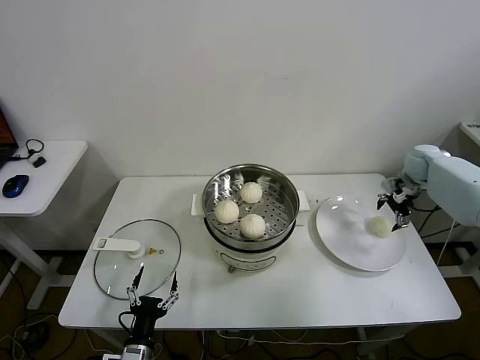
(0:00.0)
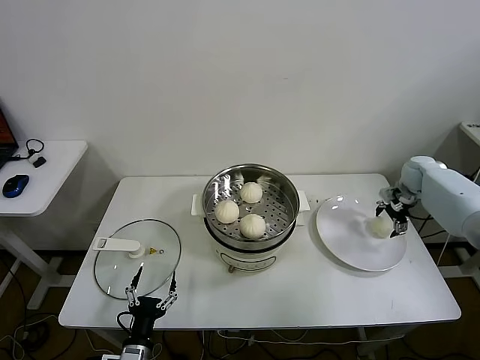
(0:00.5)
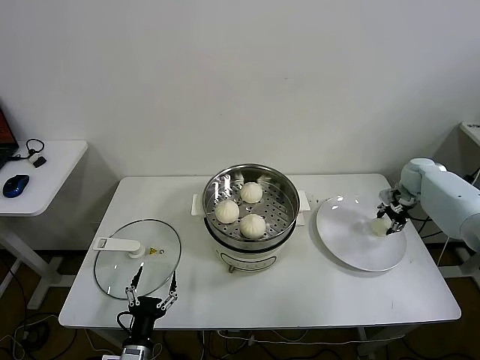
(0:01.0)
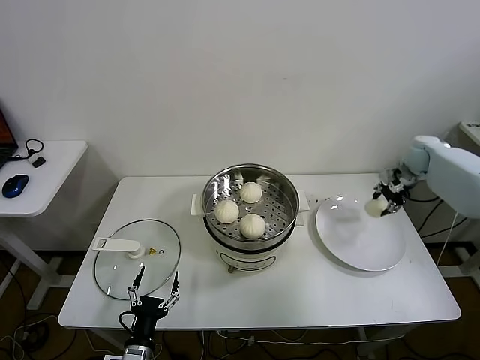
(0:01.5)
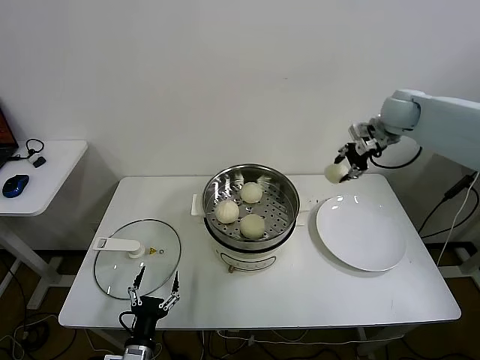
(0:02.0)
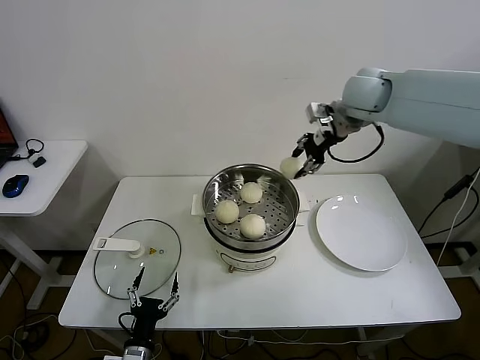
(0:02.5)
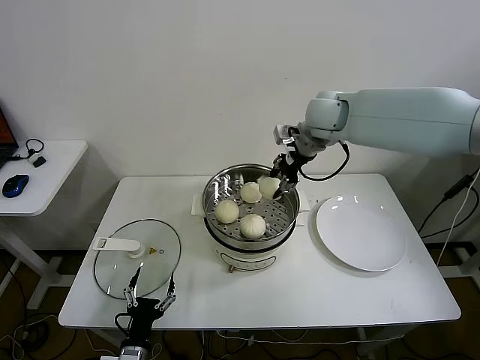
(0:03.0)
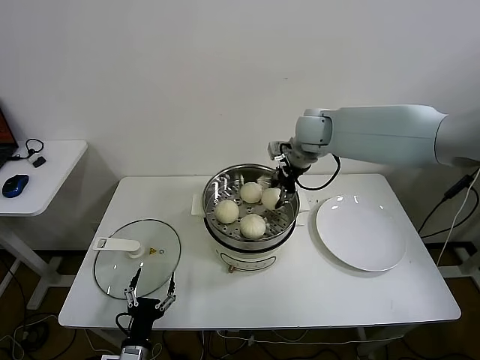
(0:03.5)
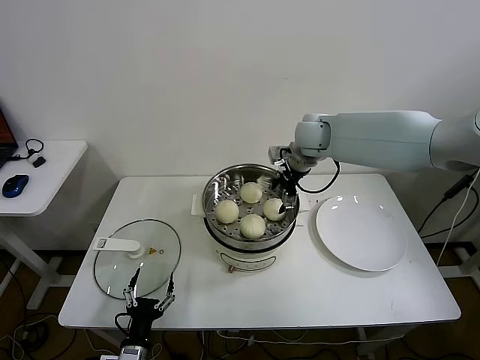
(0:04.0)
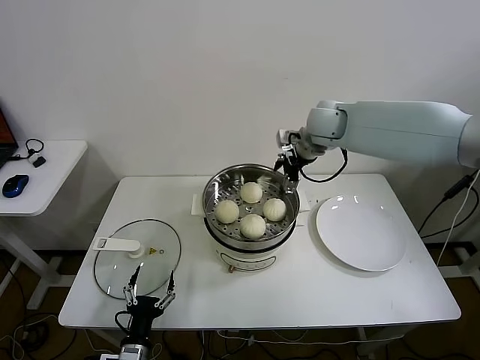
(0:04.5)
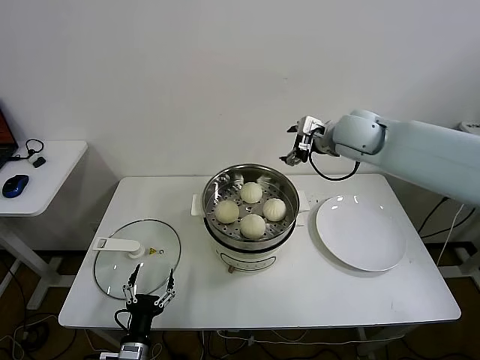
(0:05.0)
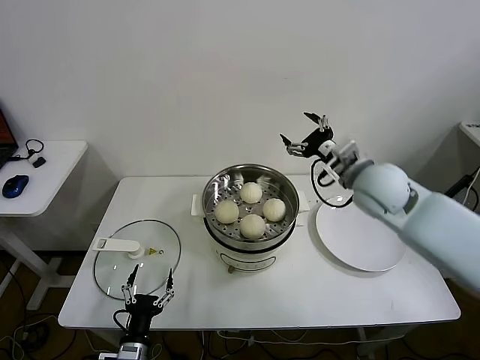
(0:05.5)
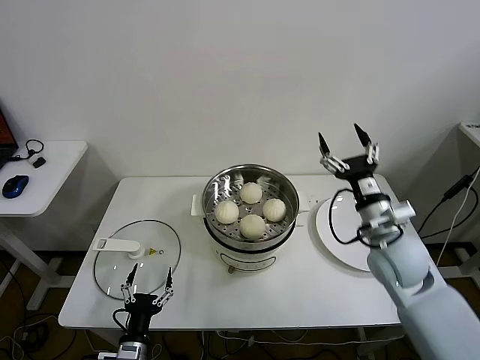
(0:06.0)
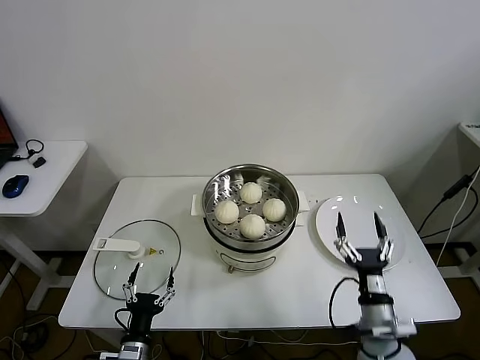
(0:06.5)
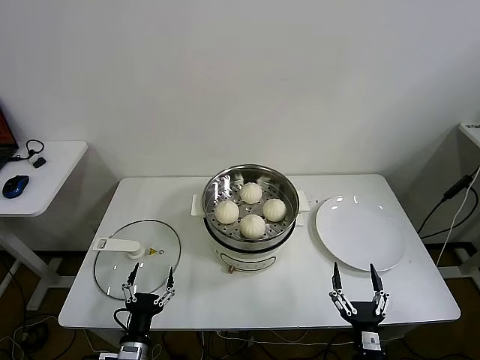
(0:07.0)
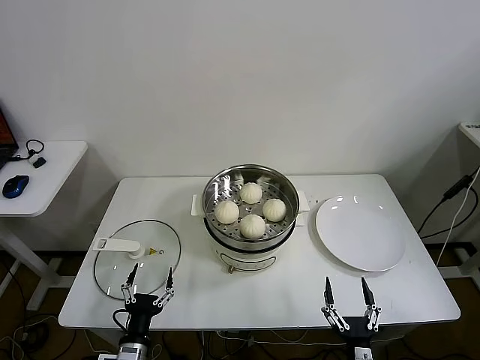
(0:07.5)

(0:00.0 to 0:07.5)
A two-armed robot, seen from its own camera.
Task of the whole recording: take steamed baozi put them in steamer.
Step, 0:01.5 - 0:04.0: Place the baozi on the steamer with right gripper.
0:00.0 - 0:02.0: The right gripper shifts about 20 cm upward and to the left, and closes.
0:02.0 - 0:04.0: The right gripper moves to the left, about 20 cm, and opens its fingers.
0:04.0 - 0:05.5: The right gripper travels backward and to the right by some 15 cm.
0:05.5 - 0:07.5: The right gripper is displaced backward and downward by about 50 cm.

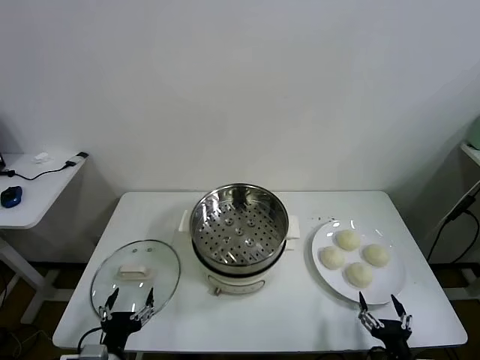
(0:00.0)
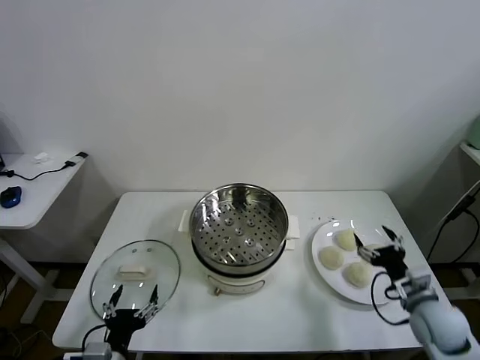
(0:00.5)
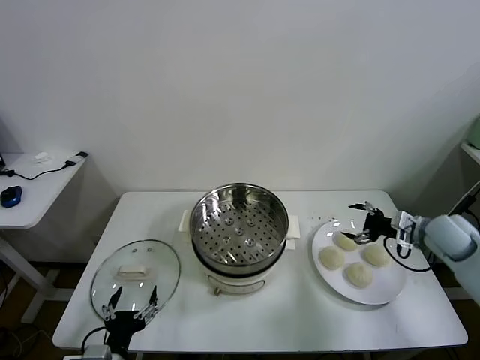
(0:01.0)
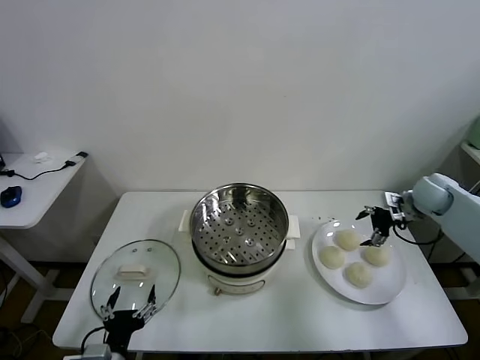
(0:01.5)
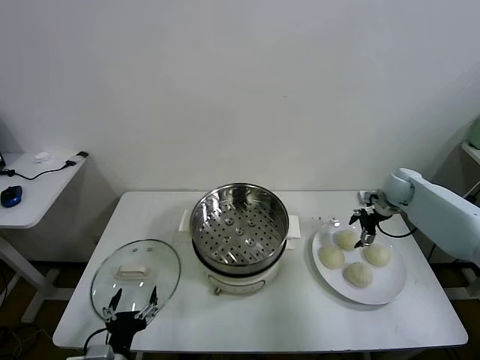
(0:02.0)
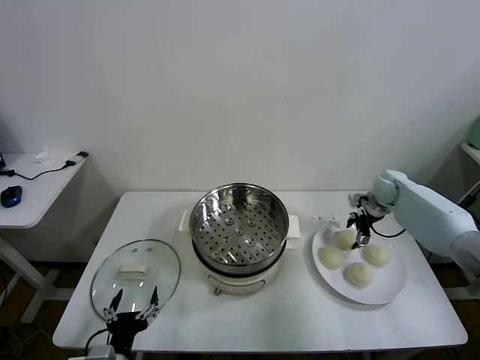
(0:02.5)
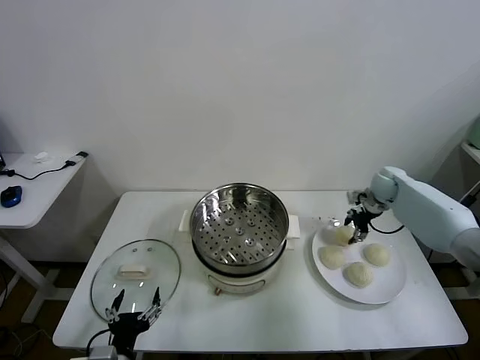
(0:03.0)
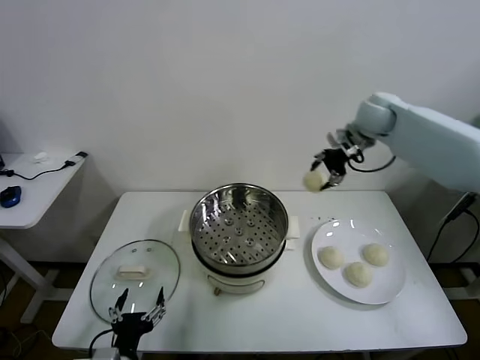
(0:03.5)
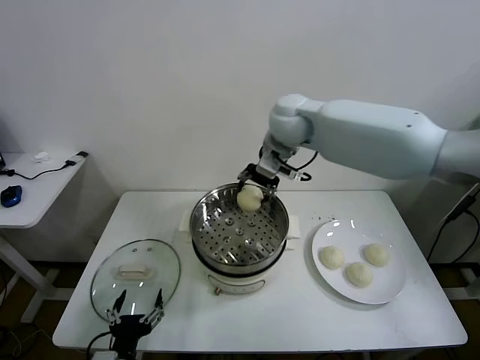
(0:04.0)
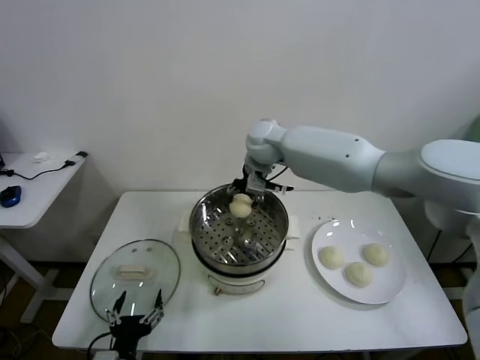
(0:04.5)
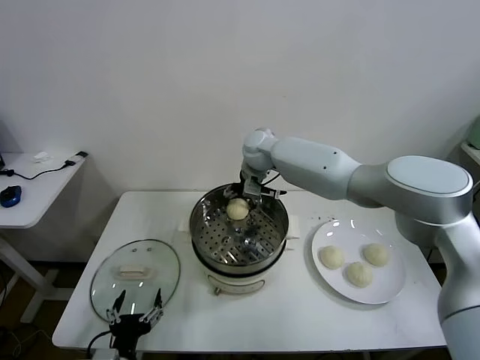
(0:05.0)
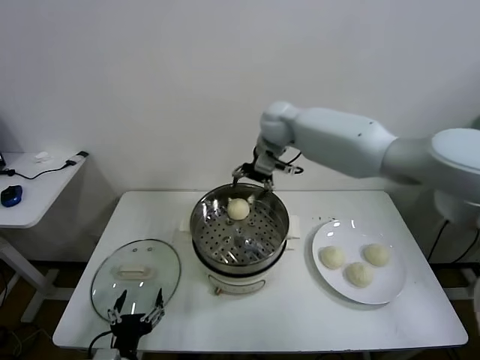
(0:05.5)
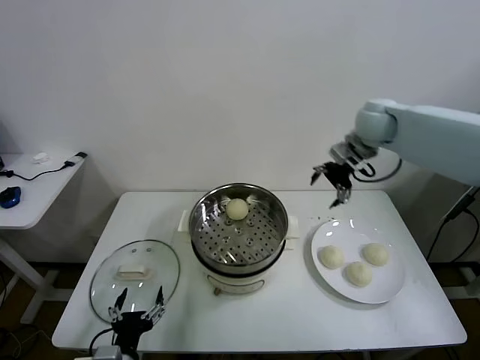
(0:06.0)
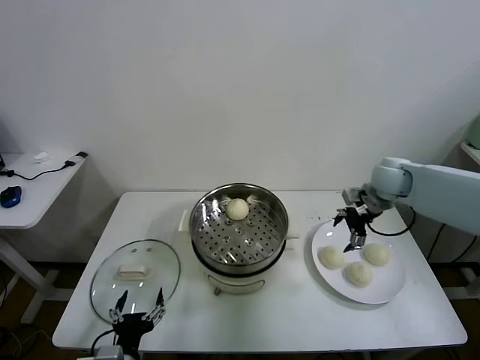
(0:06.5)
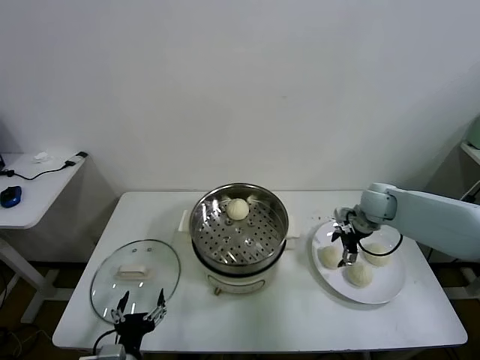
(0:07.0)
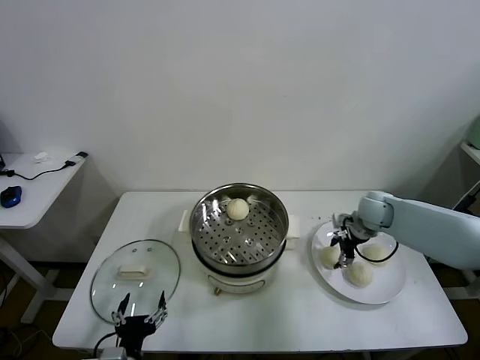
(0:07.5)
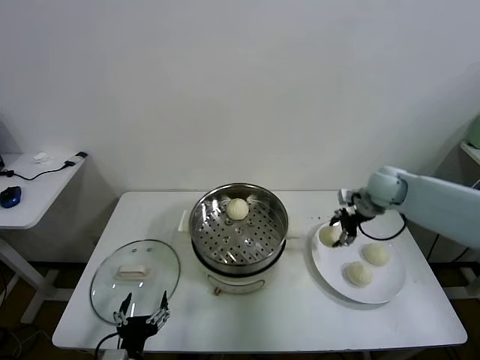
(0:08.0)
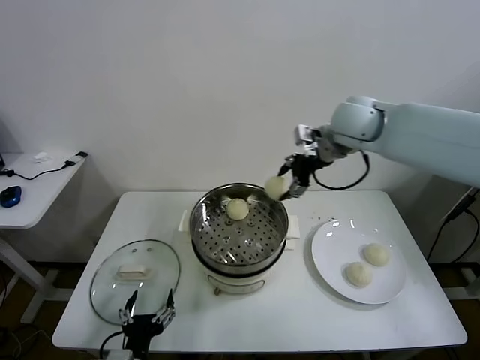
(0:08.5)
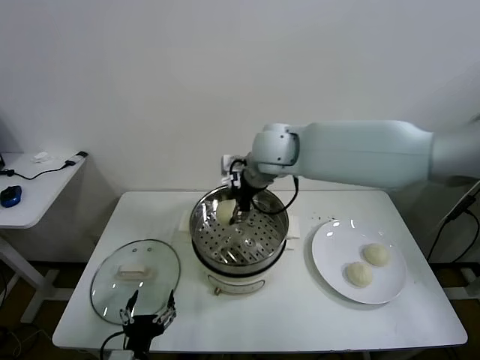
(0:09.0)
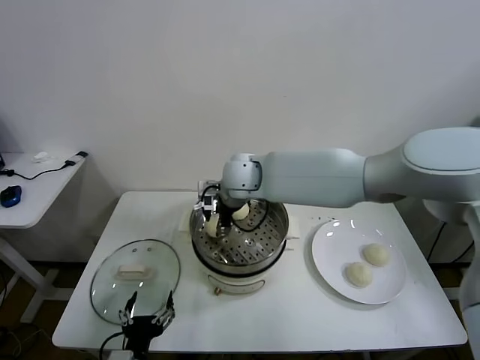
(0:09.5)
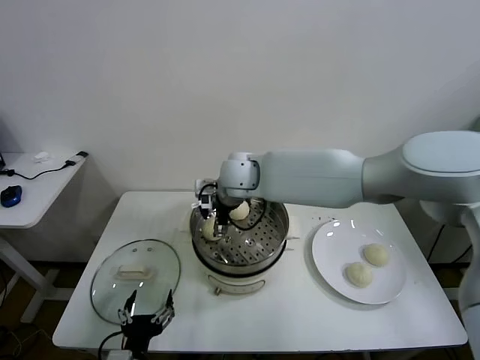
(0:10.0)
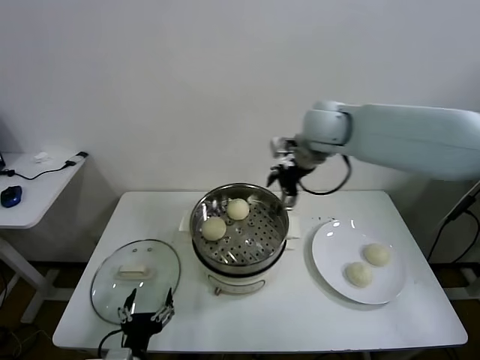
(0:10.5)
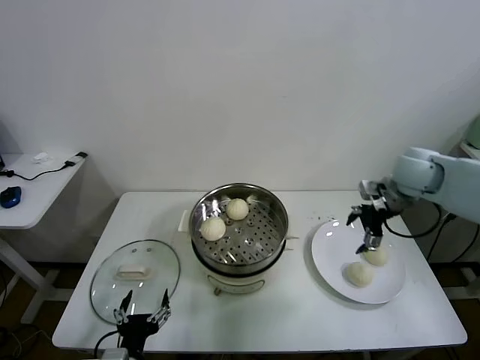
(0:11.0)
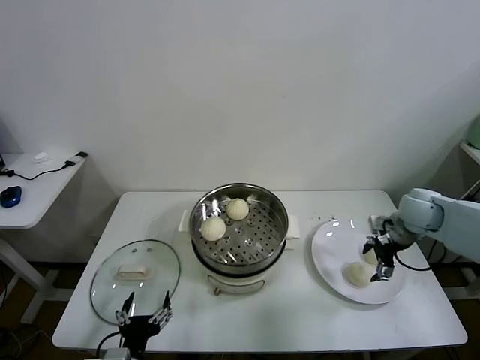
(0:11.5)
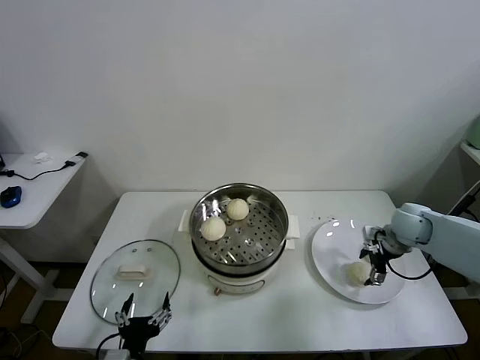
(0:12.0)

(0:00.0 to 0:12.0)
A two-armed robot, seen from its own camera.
Task of the whole recording: take steamed baozi put them in steamer.
Step, 0:00.0 - 0:02.5: Grasp the baozi in the plate with right gripper.
Step, 0:03.0 - 0:05.0: Place the baozi on the steamer with right gripper.
Step, 0:05.5 - 0:07.5: Grasp the baozi in the plate with right gripper.
Step, 0:08.0 - 0:10.0: Place the baozi on the steamer with right gripper.
0:02.0 - 0:04.0: The right gripper travels to the left and upward by some 40 cm, and closes up.
0:04.0 - 0:06.0: The right gripper shifts some 25 cm to the right, and opens up.
0:06.0 - 0:08.0: The right gripper goes some 10 cm downward, and closes its fingers.
0:08.0 - 0:10.0: The right gripper heads to the left, covering about 35 cm, and opens up.
0:10.0 - 0:12.0: The right gripper is displaced to the right by some 40 cm.

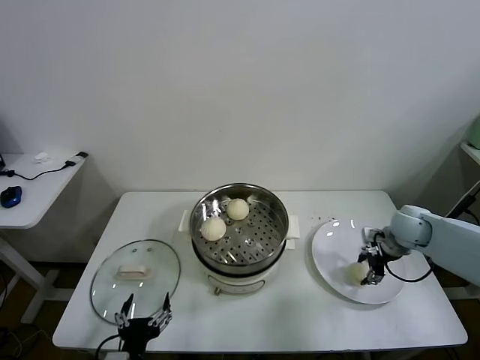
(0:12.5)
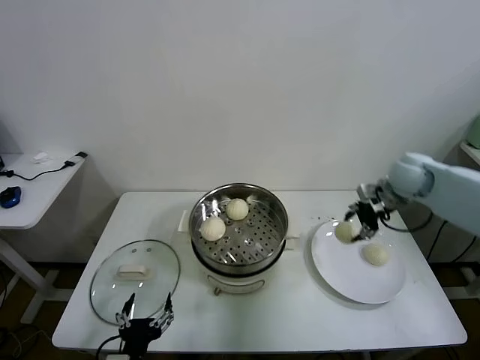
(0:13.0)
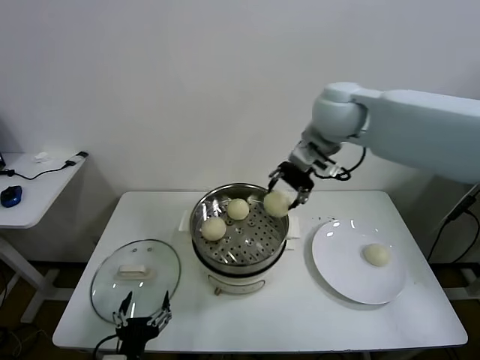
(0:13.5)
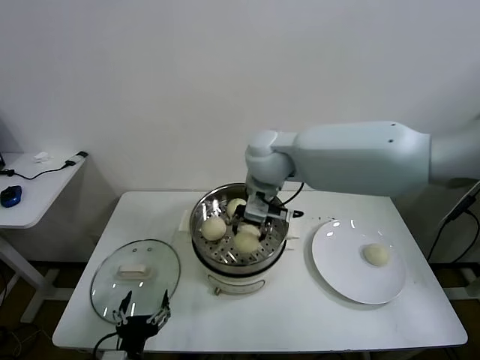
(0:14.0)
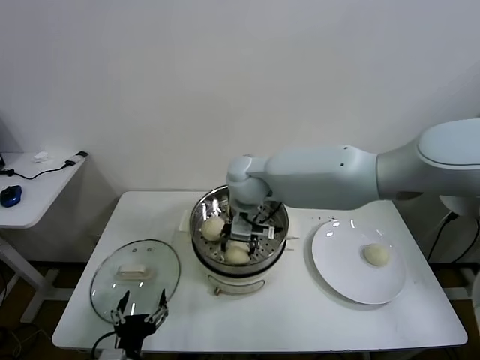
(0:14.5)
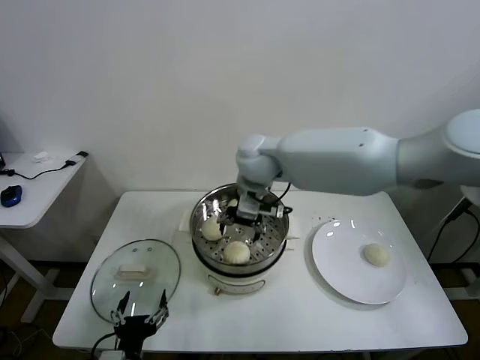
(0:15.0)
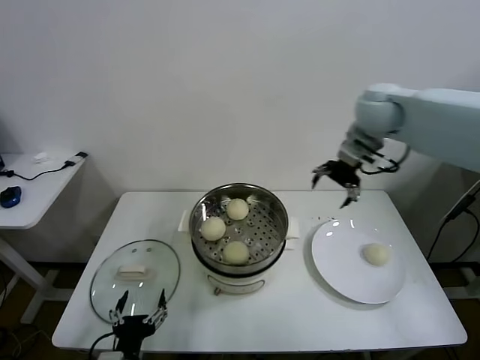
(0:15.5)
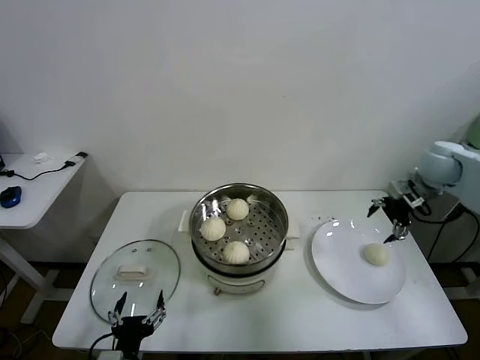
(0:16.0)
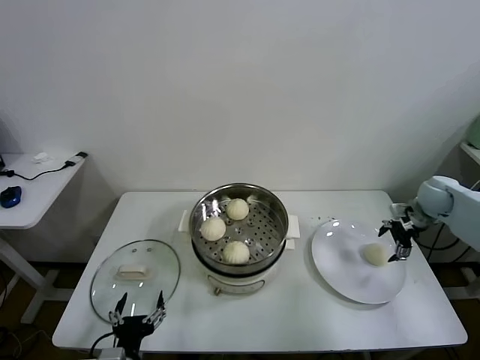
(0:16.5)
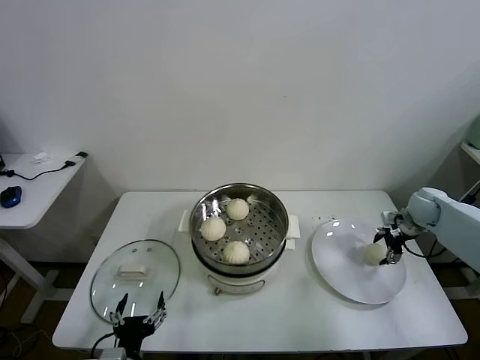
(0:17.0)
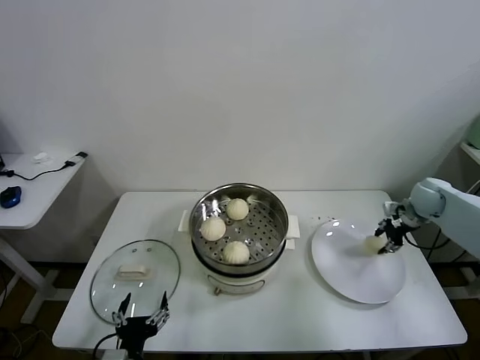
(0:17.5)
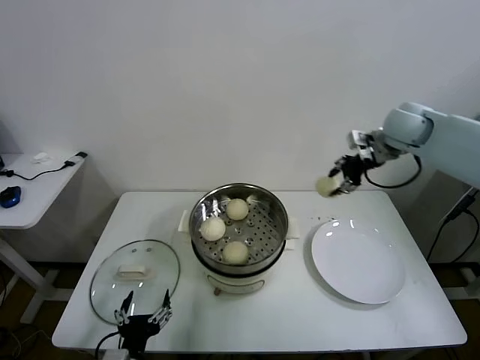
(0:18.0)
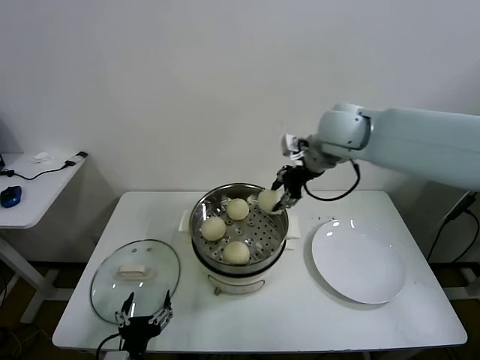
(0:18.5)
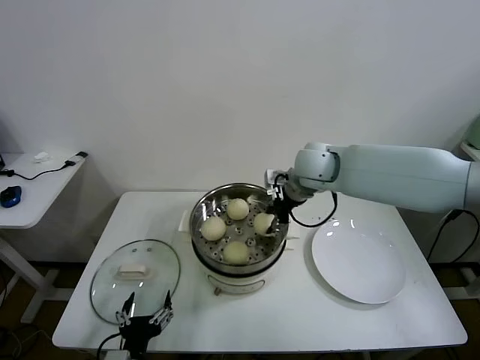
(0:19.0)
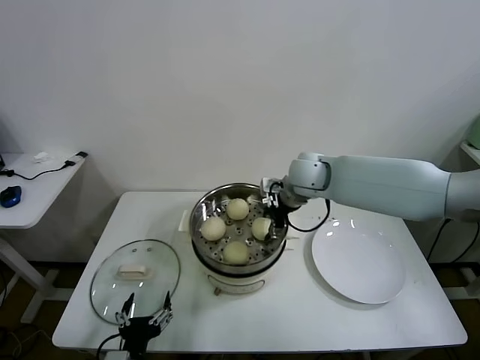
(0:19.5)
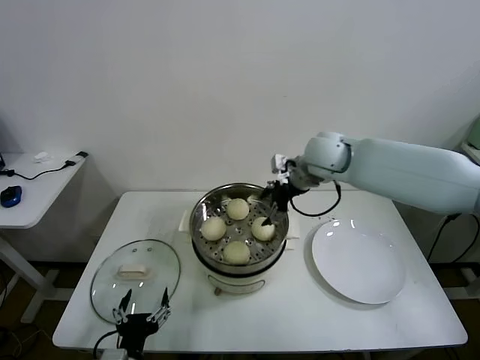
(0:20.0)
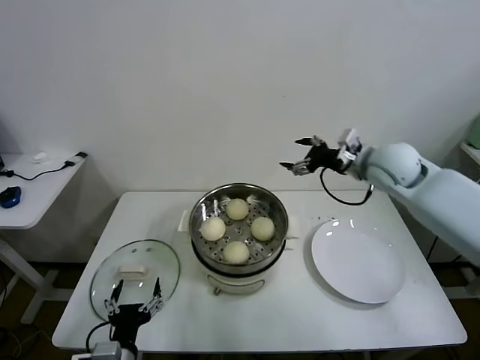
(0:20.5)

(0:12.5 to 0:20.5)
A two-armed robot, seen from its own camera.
Task of the whole recording: take steamed baozi put them in steamer.
Step, 0:12.5 - 0:14.5: Place the baozi on the steamer with right gripper.
Step, 0:15.5 - 0:17.0: Grasp the baozi in the plate with right gripper.
Step, 0:17.5 - 0:19.5: Place the baozi on the steamer with right gripper.
0:12.5 - 0:14.5: The right gripper shifts roughly 40 cm to the left.
0:14.5 - 0:16.5: The right gripper goes some 50 cm to the right, and opens.
0:16.5 - 0:18.5: The right gripper shifts approximately 35 cm to the left and upward, and closes up.
0:18.5 - 0:20.5: The right gripper travels to the right and downward by some 15 cm, and opens up.
